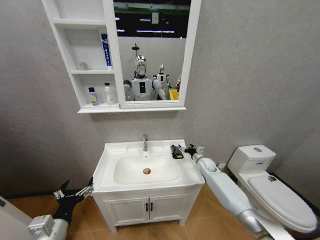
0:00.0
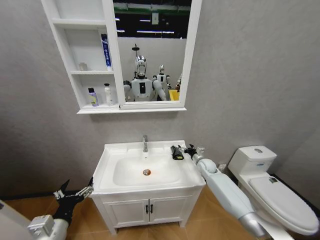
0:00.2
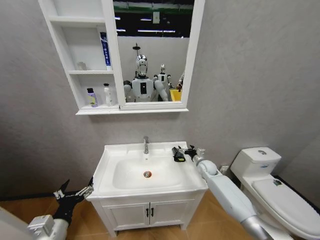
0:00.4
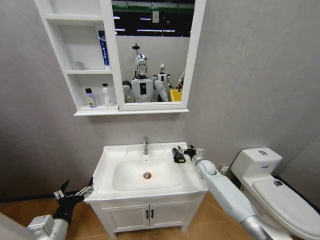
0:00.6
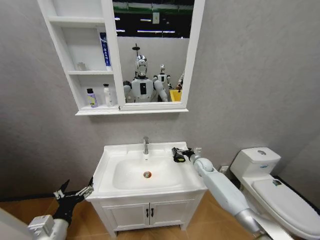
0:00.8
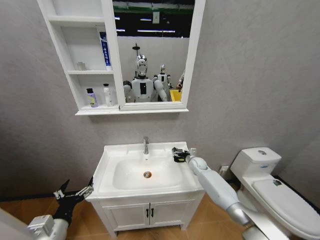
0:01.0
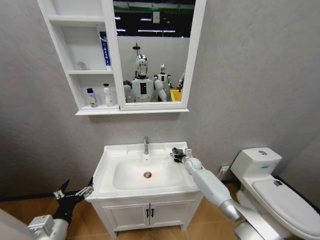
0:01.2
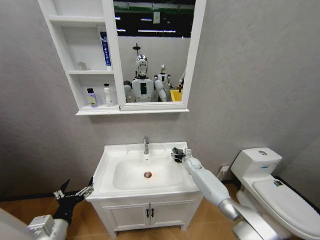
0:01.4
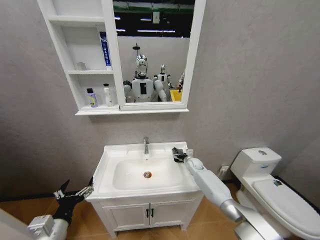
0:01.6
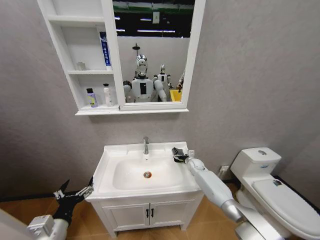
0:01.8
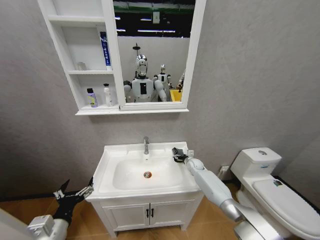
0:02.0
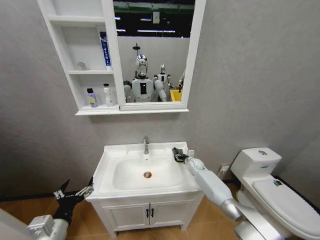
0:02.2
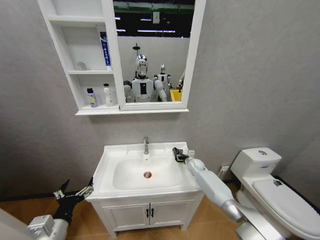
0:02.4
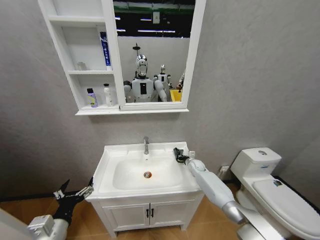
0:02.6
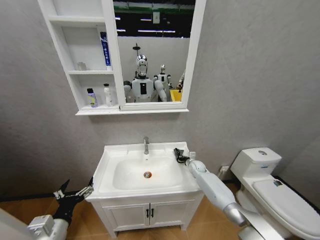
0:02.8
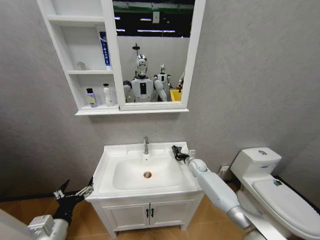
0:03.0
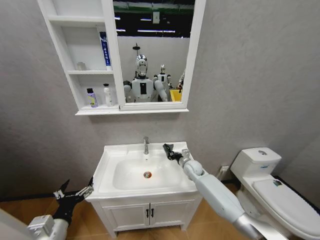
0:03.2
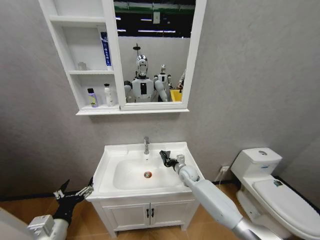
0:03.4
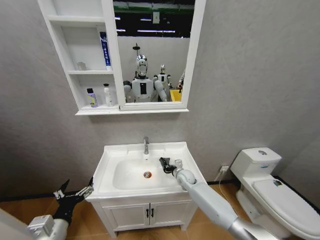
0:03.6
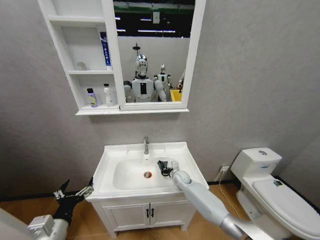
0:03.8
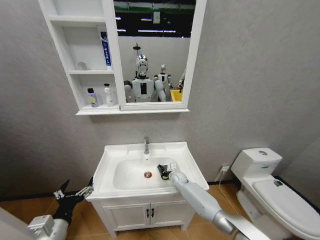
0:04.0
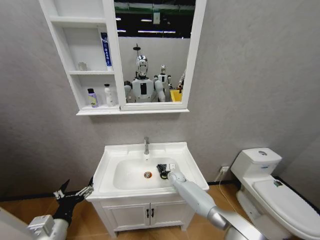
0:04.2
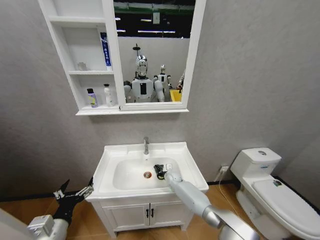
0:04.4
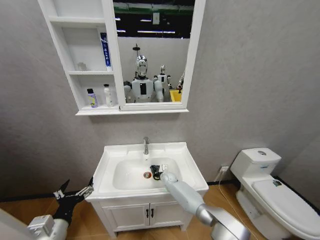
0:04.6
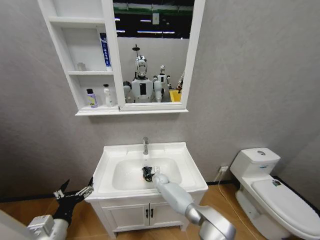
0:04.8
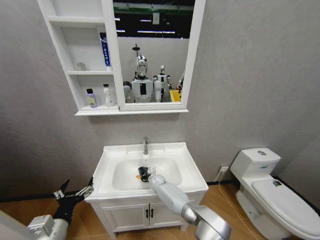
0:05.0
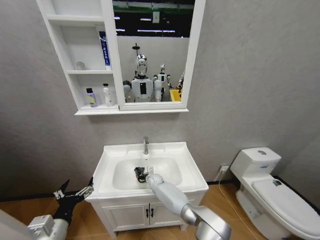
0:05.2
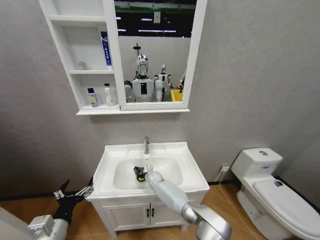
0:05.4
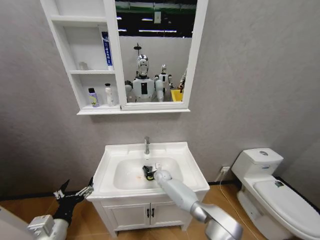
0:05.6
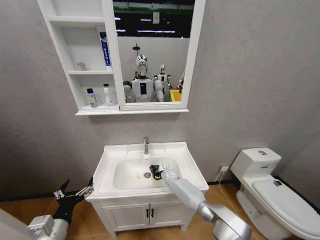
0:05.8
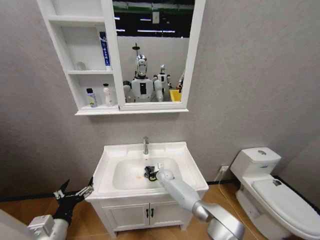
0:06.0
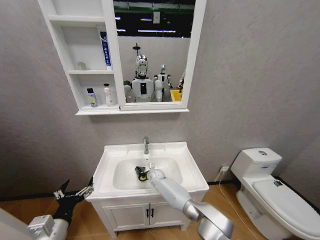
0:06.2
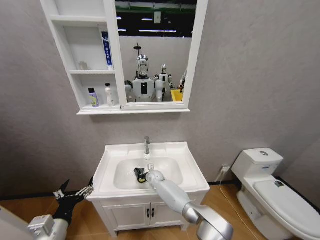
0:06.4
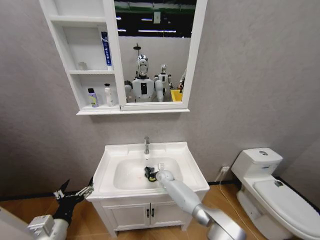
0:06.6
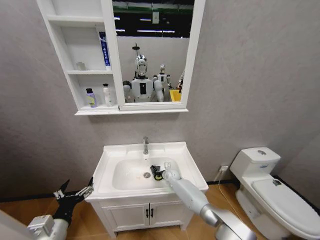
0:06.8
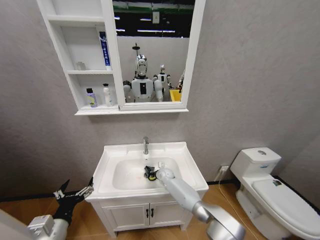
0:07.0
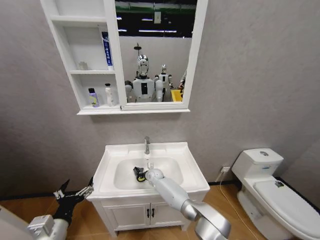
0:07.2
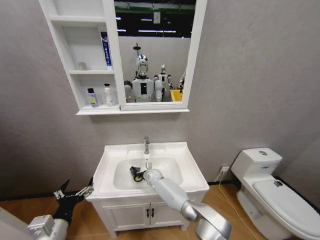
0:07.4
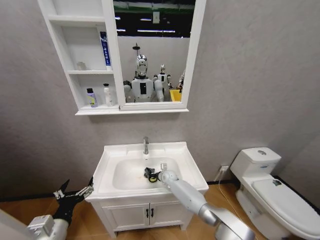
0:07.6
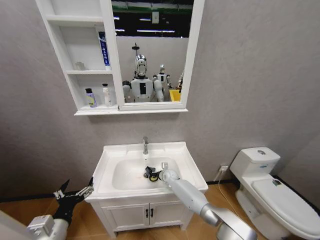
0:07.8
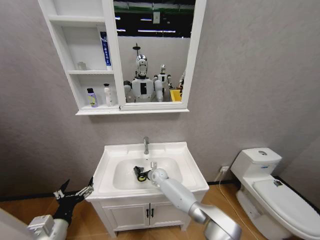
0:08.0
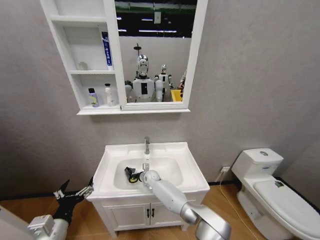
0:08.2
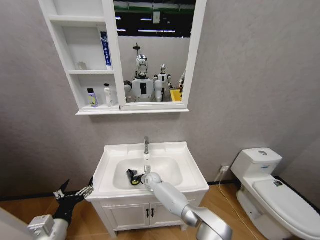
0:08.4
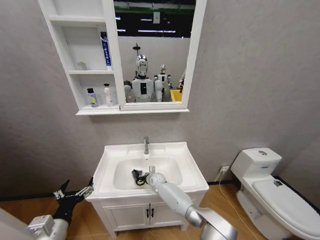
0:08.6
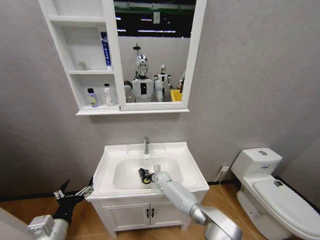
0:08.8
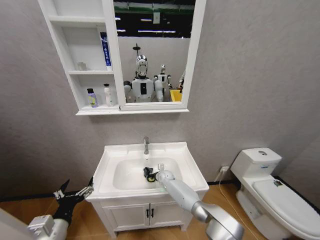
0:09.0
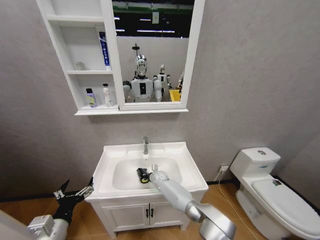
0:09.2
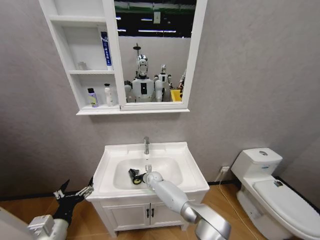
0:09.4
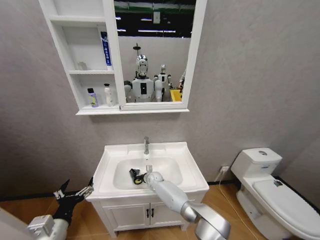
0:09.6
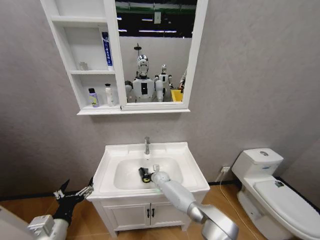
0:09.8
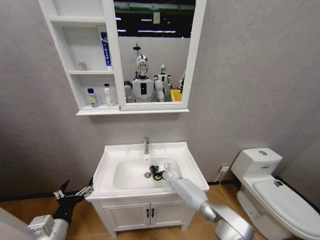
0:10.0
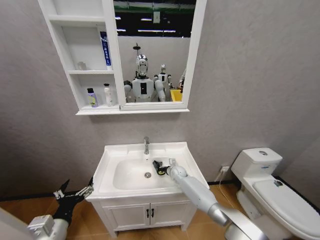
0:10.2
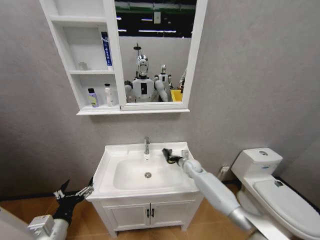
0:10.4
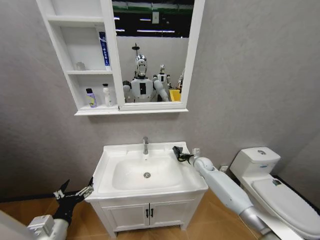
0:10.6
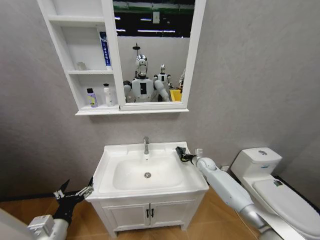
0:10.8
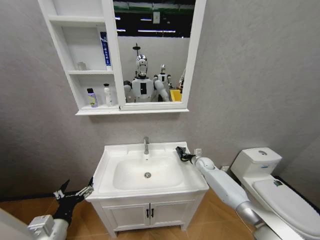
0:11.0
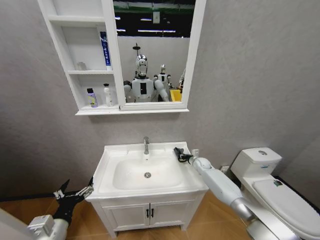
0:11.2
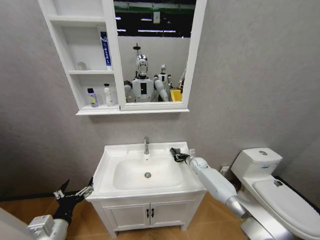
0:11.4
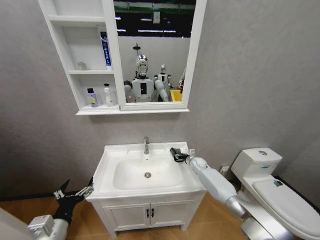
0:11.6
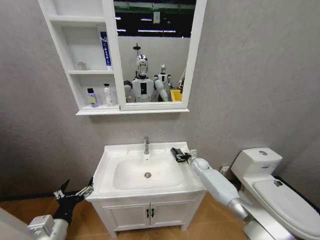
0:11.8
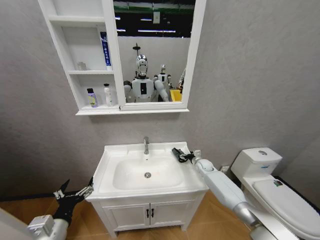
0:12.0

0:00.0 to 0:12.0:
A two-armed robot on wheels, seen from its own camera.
Task of the whole recording: Move facial cleanser and shampoo from washbasin to cabinet, then wipe washbasin with towel.
0:00.0 to 0:01.6: The right gripper ends up roughly 5 cm from where it was.
0:01.6 to 0:03.0: The right gripper closes up.
0:03.0 to 0:04.4: The right gripper shifts approximately 15 cm to the left and downward.
0:04.4 to 0:06.0: The right gripper goes roughly 5 cm to the left.
0:06.0 to 0:07.6: The right gripper goes left and right, approximately 10 cm each way, reversing 3 times.
0:07.6 to 0:09.0: The right gripper travels to the left and back again, some 10 cm each way.
0:09.0 to 0:10.4: The right gripper travels to the right and upward by some 15 cm.
0:10.4 to 0:12.0: The right gripper travels to the right by approximately 10 cm, and opens its fingers.

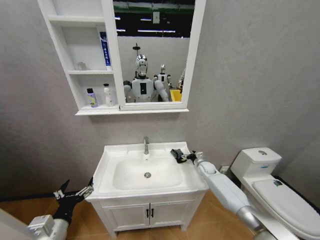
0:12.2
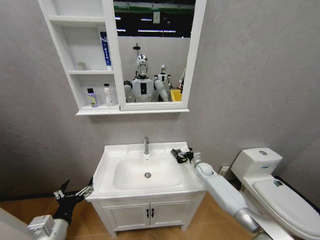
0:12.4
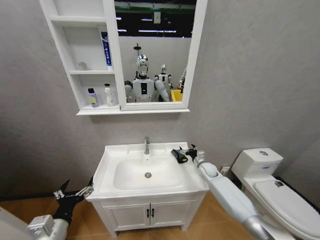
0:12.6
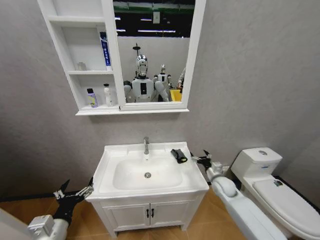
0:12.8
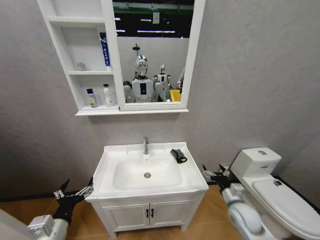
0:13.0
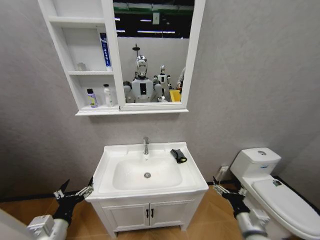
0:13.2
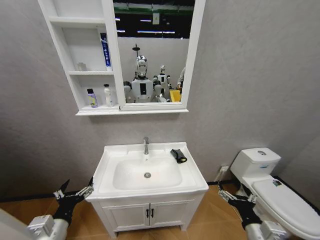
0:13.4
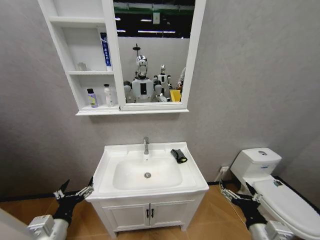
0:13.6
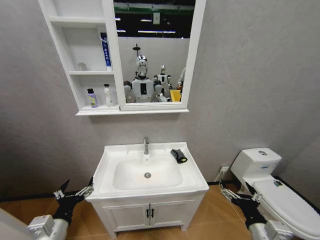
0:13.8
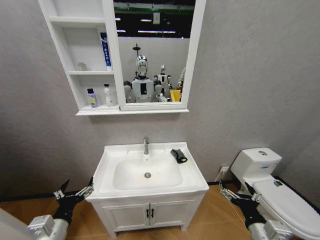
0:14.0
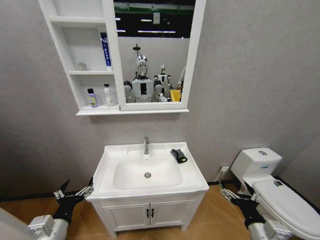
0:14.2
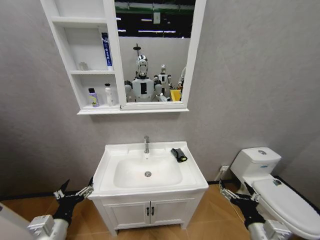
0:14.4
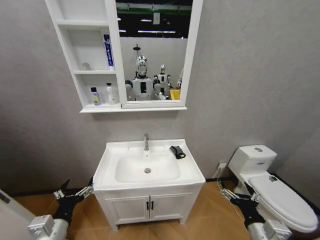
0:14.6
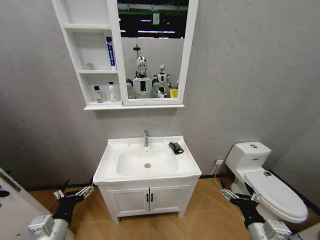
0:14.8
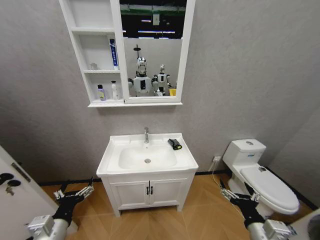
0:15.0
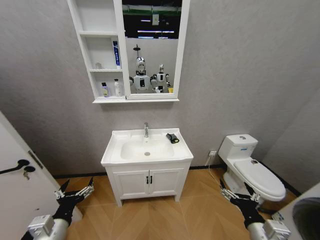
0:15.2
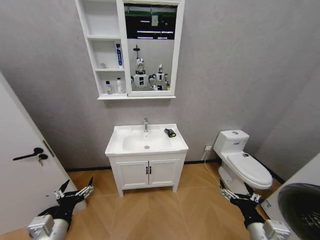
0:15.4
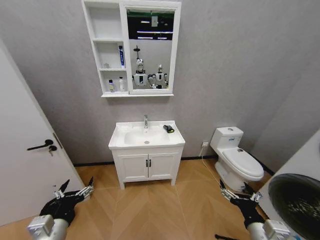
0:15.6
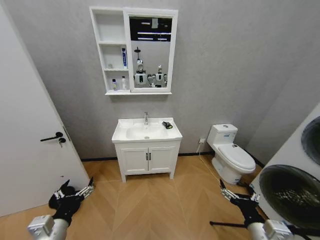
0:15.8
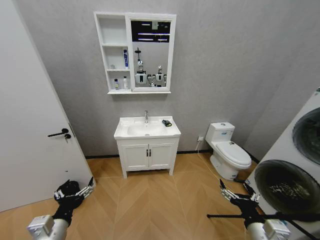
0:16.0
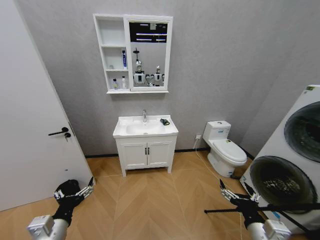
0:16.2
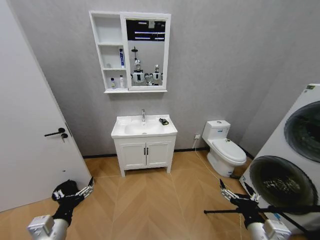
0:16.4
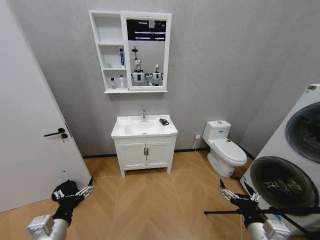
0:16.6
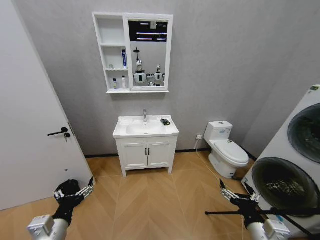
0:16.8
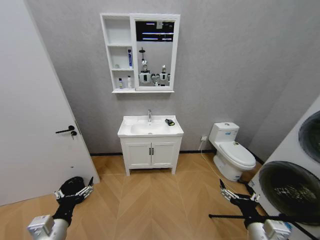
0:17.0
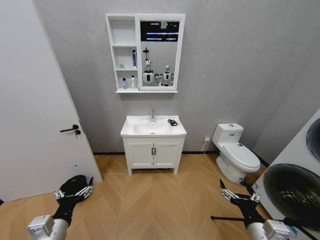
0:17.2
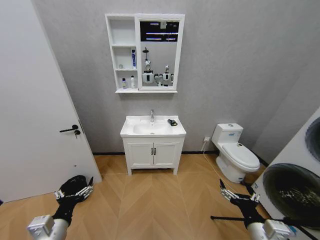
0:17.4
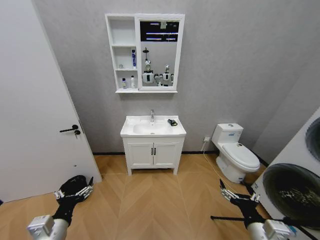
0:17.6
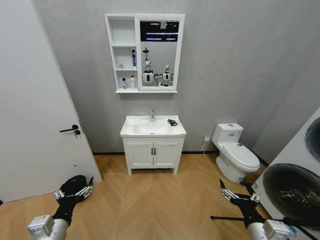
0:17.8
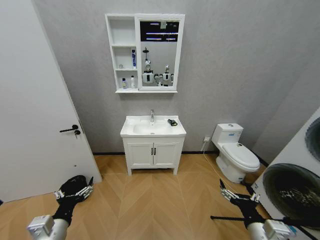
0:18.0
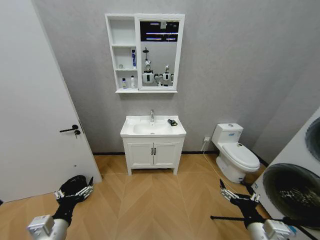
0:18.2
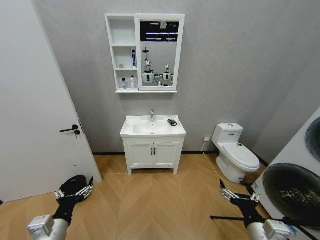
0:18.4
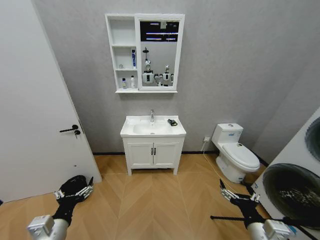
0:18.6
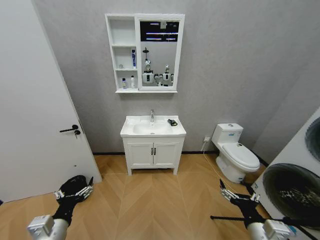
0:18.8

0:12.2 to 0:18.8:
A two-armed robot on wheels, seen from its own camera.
Task of the whole recording: Move facial cleanser and shampoo from washbasin to cabinet, then wipe washbasin with towel.
0:12.2 to 0:13.8: The right gripper shifts about 40 cm backward.
0:17.2 to 0:18.8: Neither gripper changes place.
